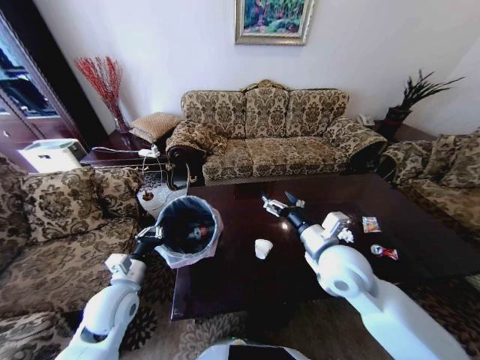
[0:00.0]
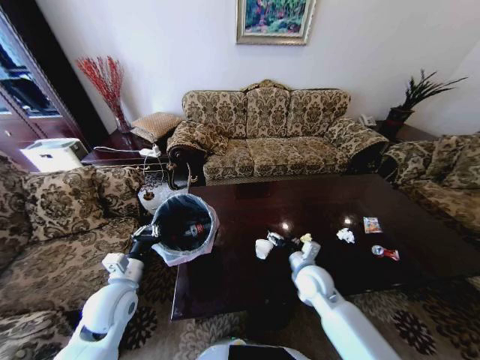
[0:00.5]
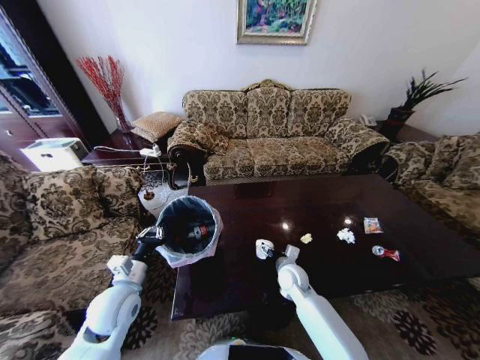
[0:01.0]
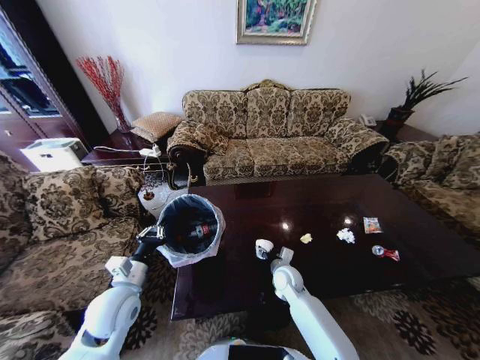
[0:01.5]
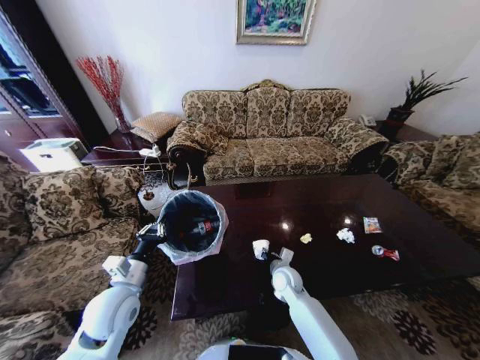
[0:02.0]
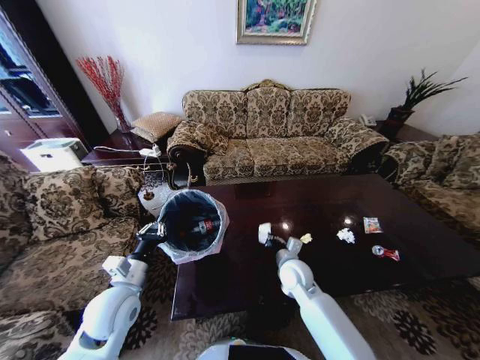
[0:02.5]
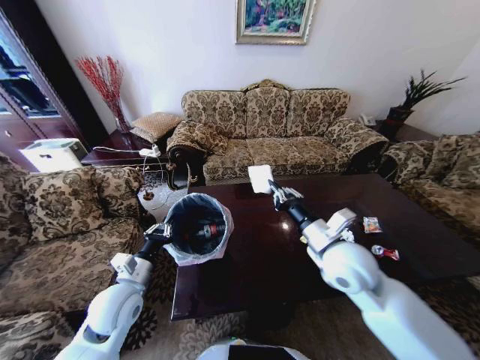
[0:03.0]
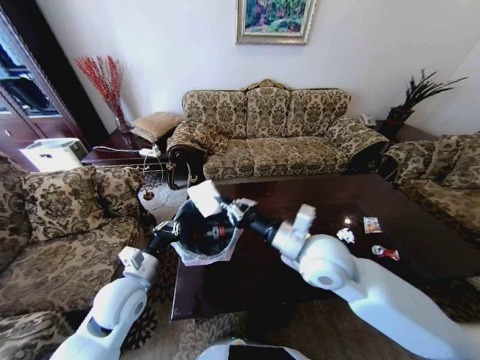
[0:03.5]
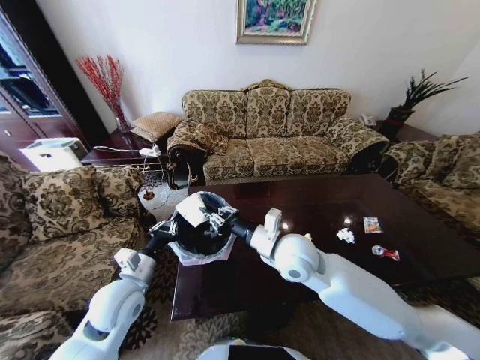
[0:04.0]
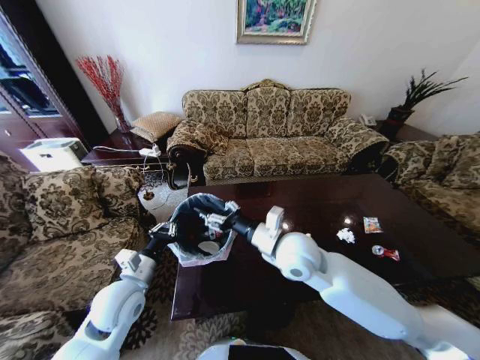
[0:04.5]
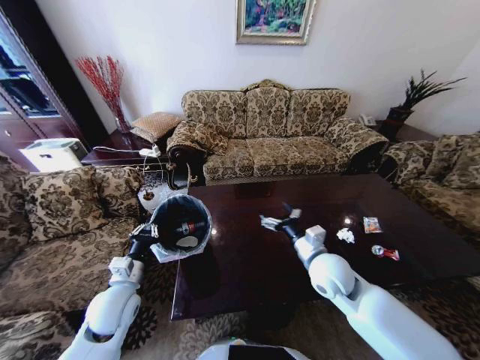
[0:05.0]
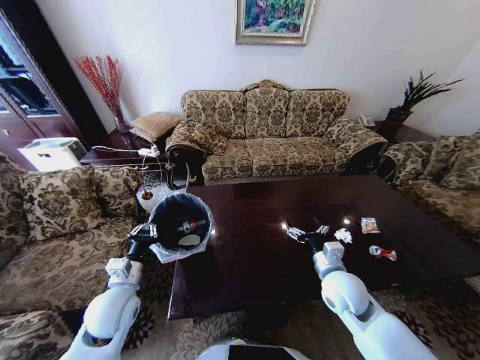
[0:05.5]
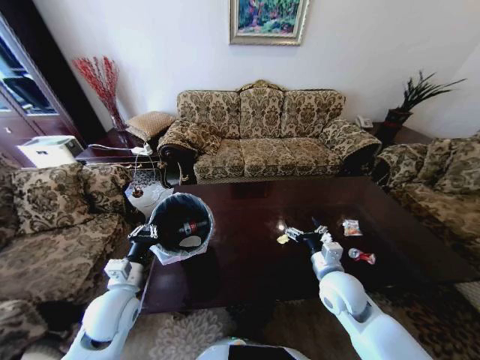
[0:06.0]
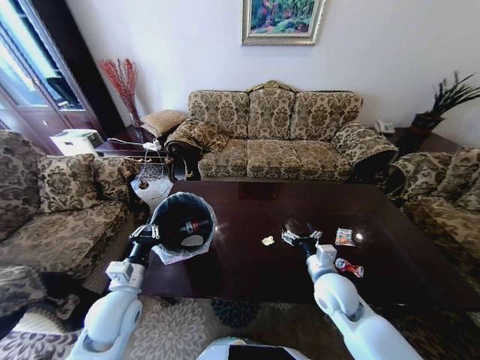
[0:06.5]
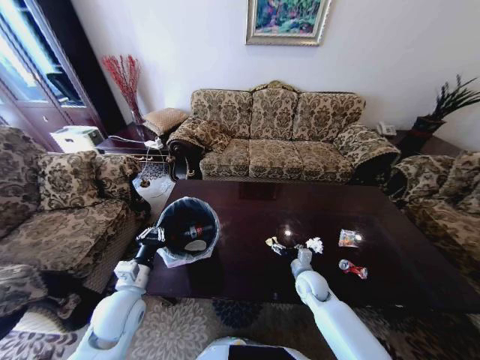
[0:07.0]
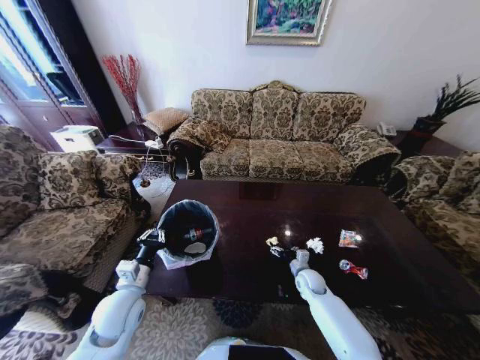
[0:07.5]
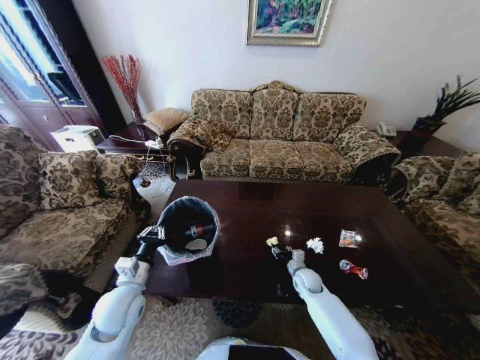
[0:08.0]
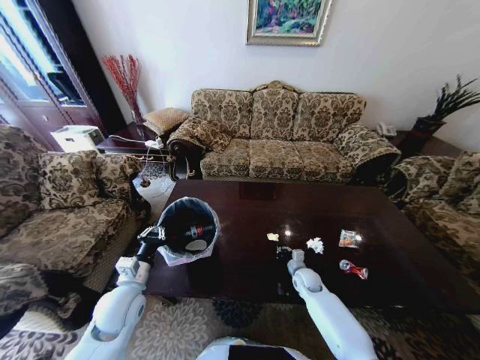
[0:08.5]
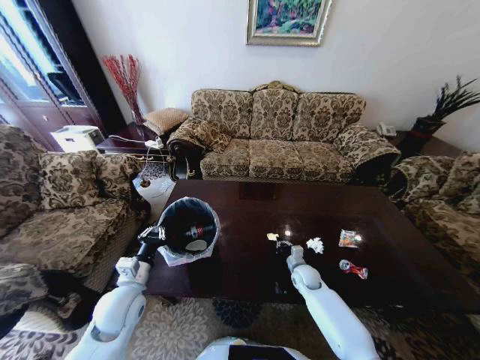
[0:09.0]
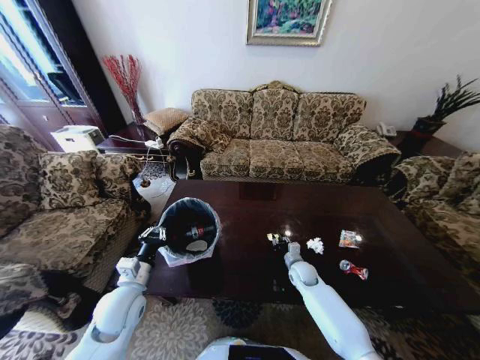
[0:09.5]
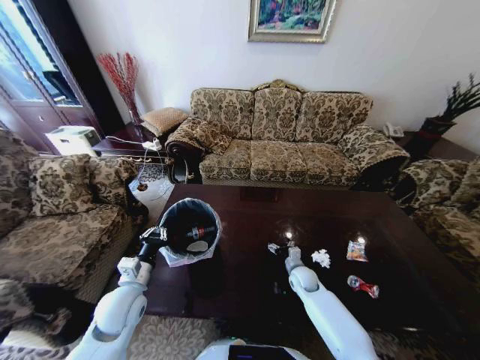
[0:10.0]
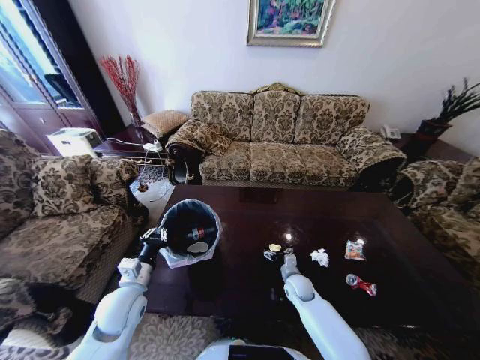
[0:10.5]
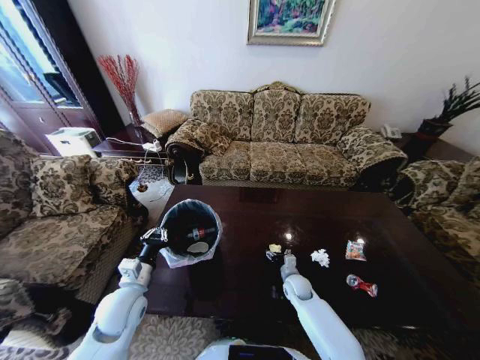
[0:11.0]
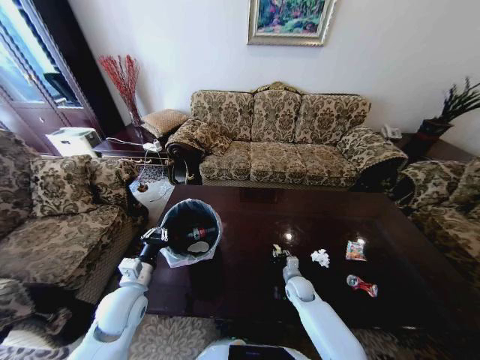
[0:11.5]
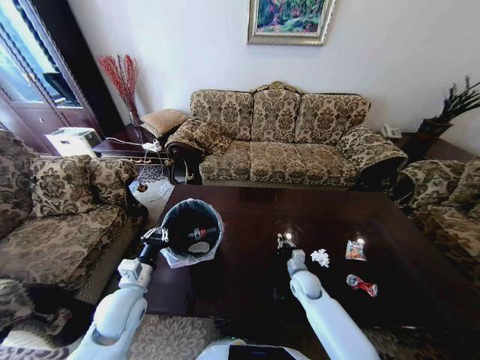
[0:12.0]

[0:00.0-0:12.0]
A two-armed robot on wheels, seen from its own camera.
Task of the whole recording: Move to the front of the table and place the trash on the table into the trash bin.
0:00.0 to 0:02.0: The right gripper shifts about 25 cm downward, and closes its fingers.
0:02.0 to 0:04.0: The right gripper goes roughly 25 cm upward.
0:04.0 to 0:06.0: The right gripper shifts approximately 15 cm to the right and downward, and opens up.
0:06.0 to 0:08.0: The right gripper travels downward and forward by some 25 cm, and closes up.
0:08.0 to 0:10.0: The right gripper closes and opens again.
0:10.0 to 0:12.0: The right gripper closes its fingers.

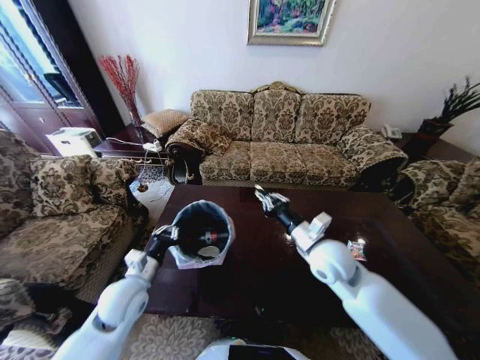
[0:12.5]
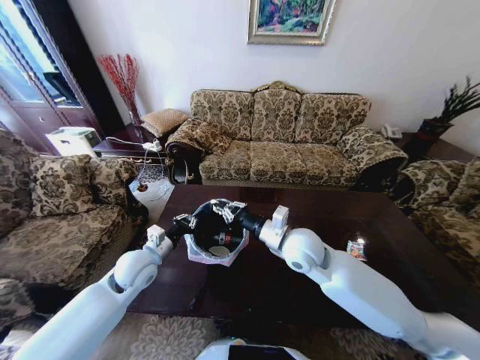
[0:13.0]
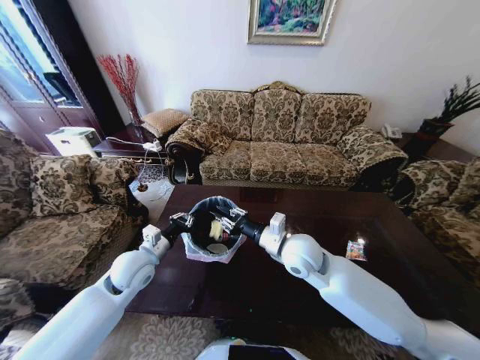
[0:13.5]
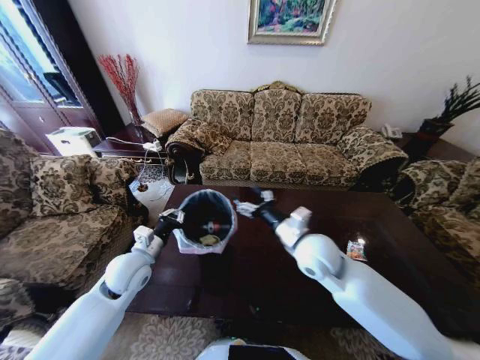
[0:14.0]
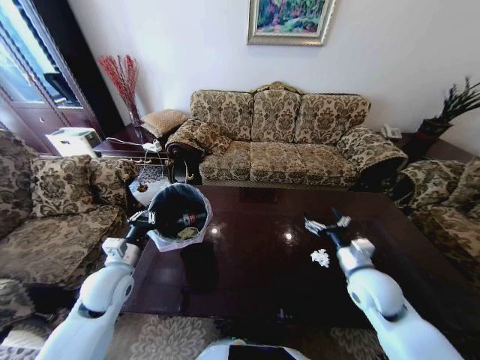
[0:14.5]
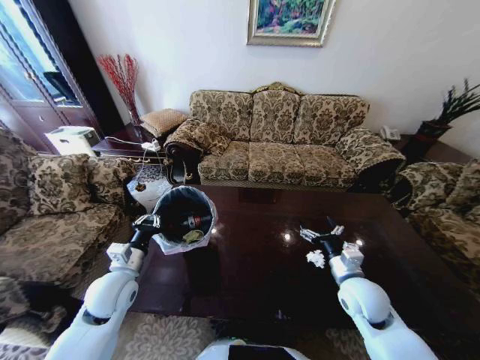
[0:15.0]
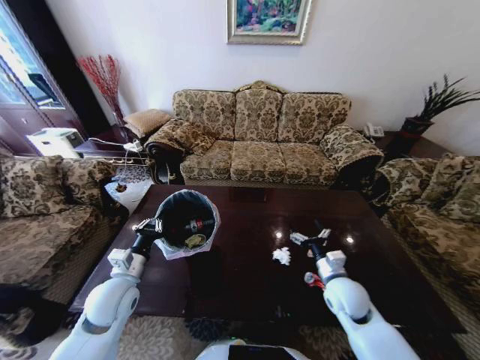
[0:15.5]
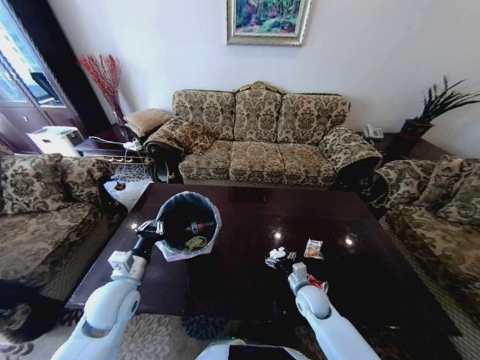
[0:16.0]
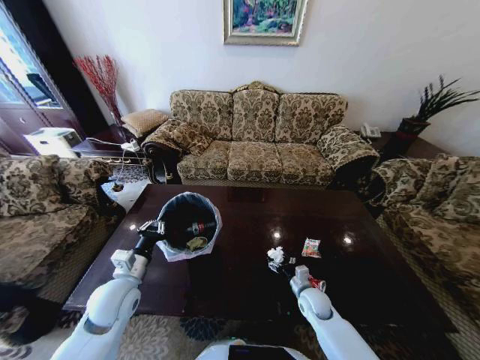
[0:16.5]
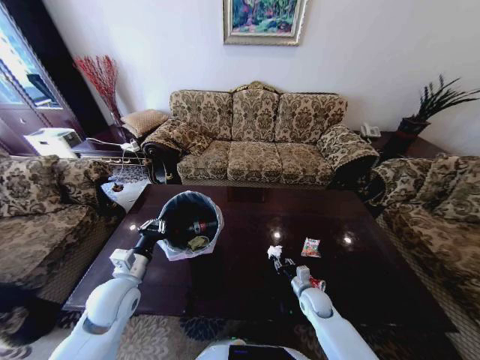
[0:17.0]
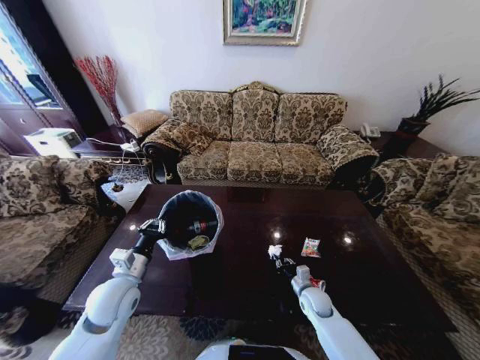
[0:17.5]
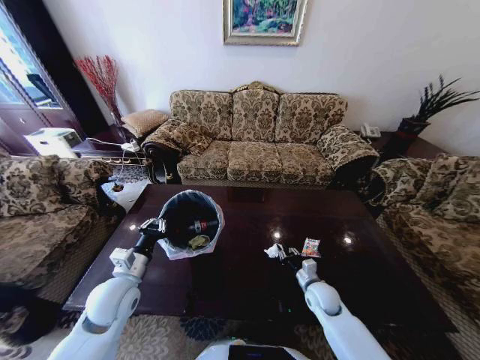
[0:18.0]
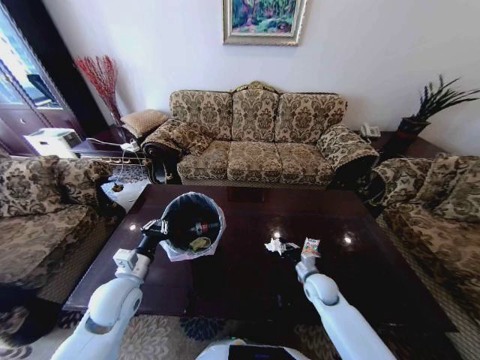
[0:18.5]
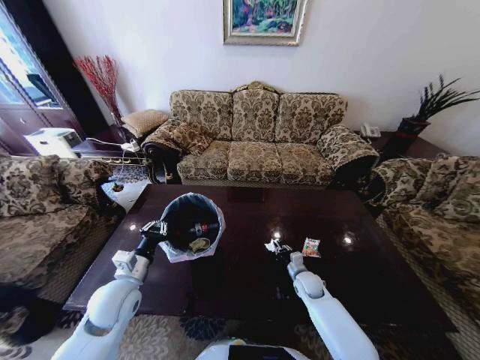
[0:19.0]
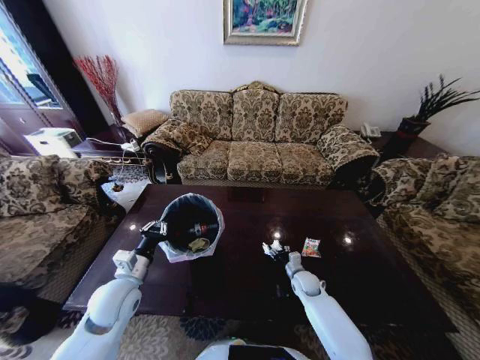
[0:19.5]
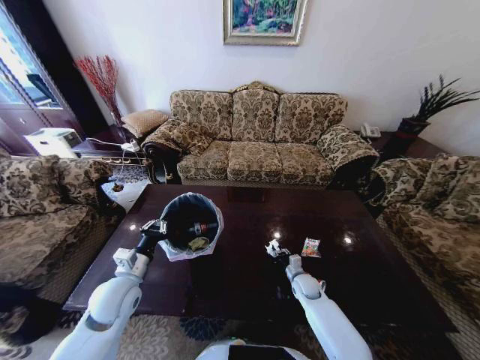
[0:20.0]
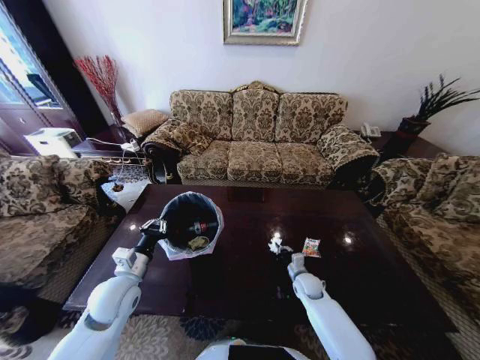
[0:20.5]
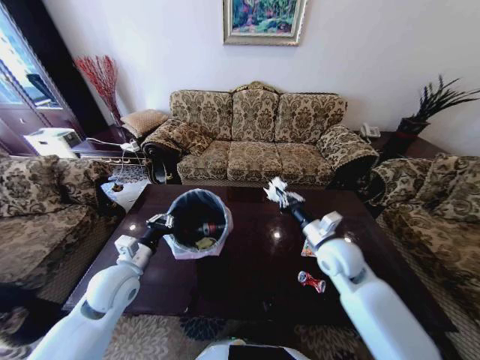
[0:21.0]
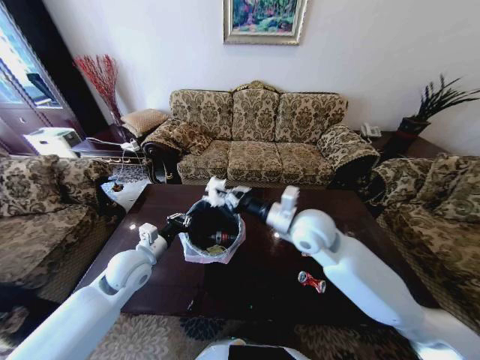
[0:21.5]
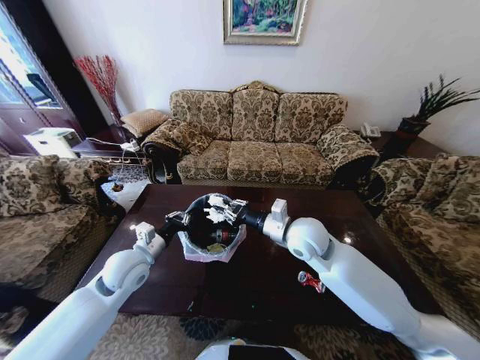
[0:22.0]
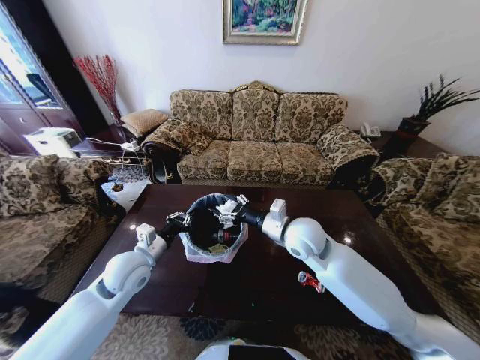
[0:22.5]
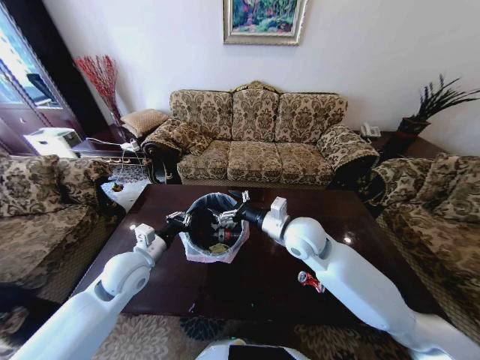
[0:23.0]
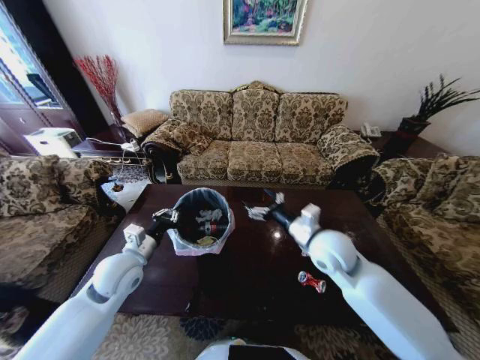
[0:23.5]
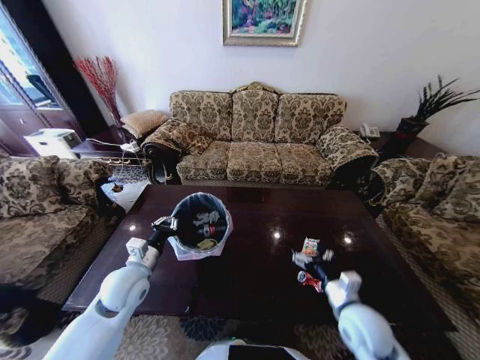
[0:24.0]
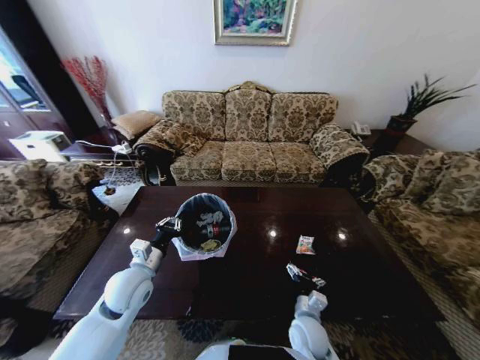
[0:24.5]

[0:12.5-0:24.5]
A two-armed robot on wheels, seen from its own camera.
Task of the whole recording: Move to the front of the table and place the trash on the table into the trash bin.
0:12.5 to 0:14.5: The right gripper heads to the right and downward, covering roughly 15 cm, and opens up.
0:14.5 to 0:16.5: The right gripper shifts some 20 cm downward.
0:16.5 to 0:18.5: The right gripper moves roughly 5 cm, and closes up.
0:18.5 to 0:20.5: The right gripper is displaced downward by about 5 cm, and opens, then closes once more.
0:20.5 to 0:22.5: The left gripper moves roughly 5 cm, while the right gripper shifts about 30 cm upward, and opens.
0:22.5 to 0:24.5: The right gripper shifts some 30 cm downward and backward.

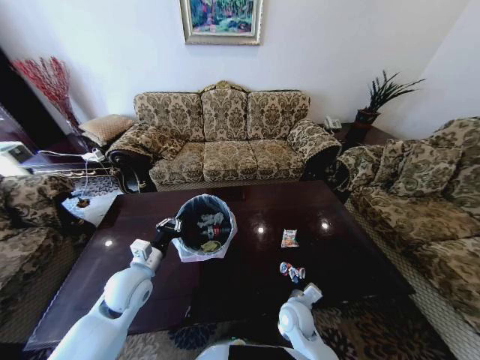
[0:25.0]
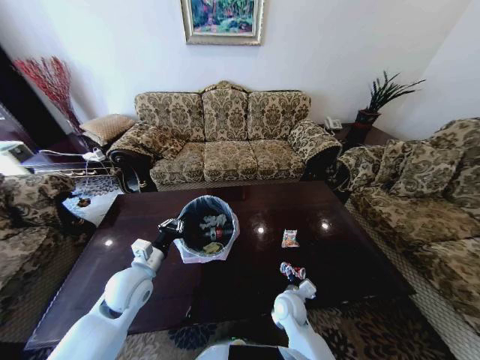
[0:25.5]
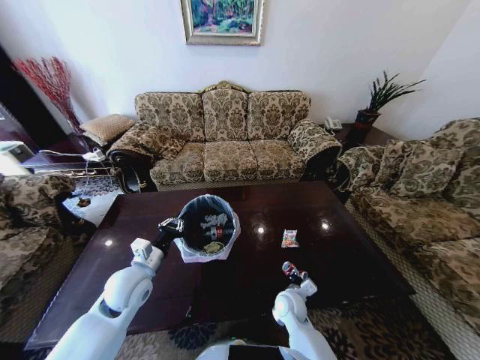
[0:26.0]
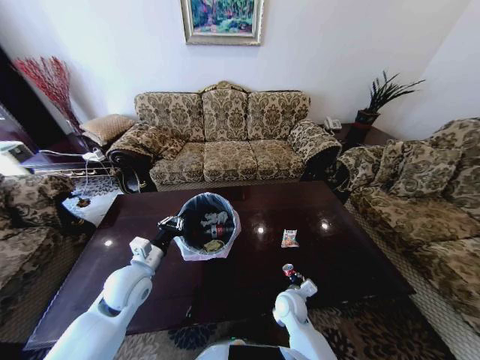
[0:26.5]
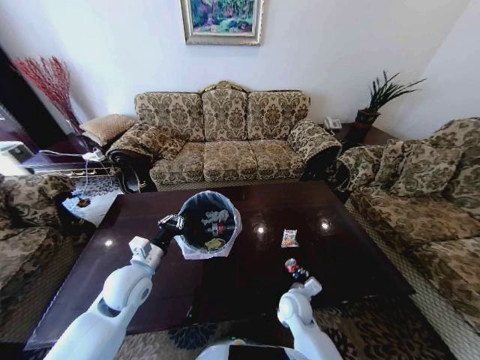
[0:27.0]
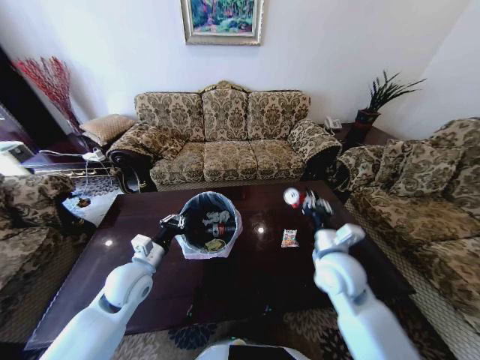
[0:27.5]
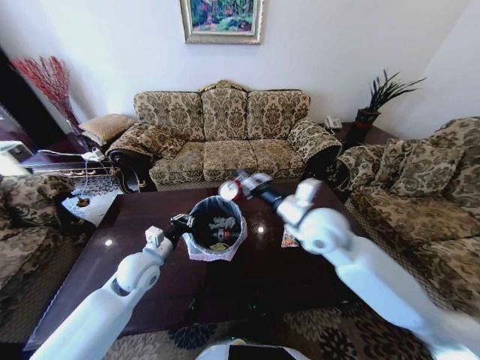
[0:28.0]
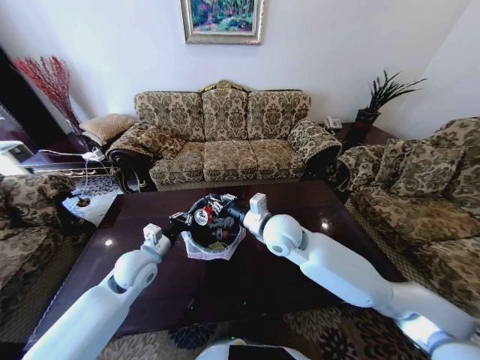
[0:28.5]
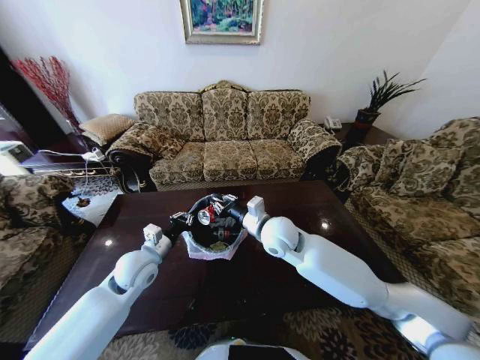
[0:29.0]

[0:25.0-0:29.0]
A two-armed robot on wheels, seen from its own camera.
Task of the whole recording: Move to the front of the table and place the trash on the table into the trash bin.
0:25.0 to 0:27.0: The right gripper closes up.
0:27.0 to 0:29.0: The right gripper is displaced upward by roughly 25 cm.
